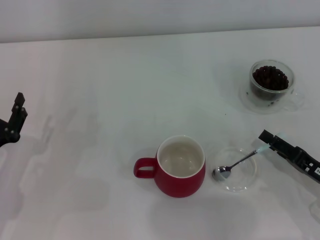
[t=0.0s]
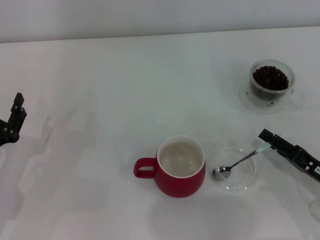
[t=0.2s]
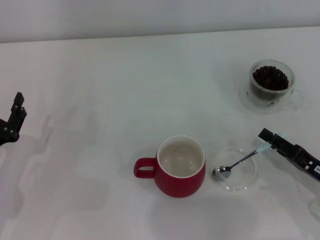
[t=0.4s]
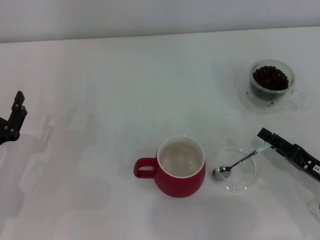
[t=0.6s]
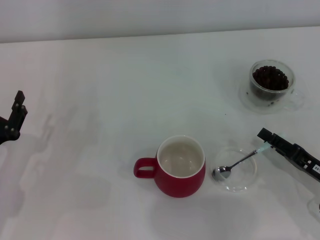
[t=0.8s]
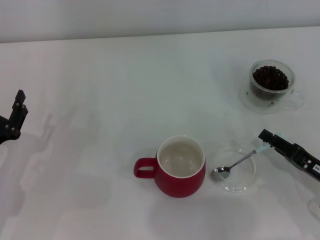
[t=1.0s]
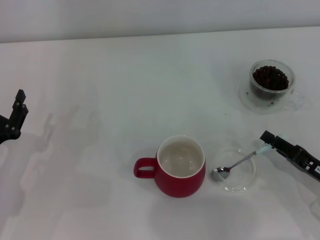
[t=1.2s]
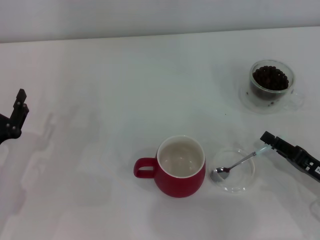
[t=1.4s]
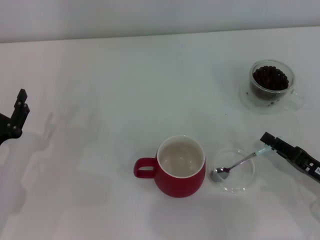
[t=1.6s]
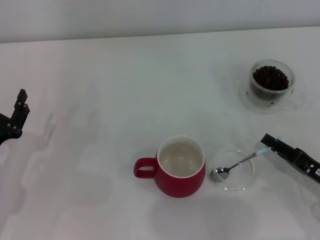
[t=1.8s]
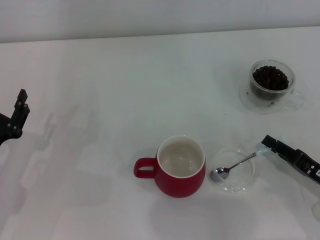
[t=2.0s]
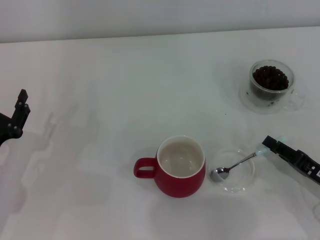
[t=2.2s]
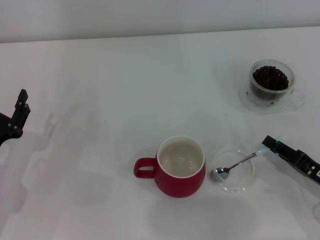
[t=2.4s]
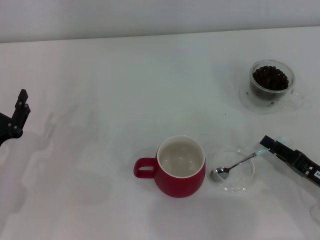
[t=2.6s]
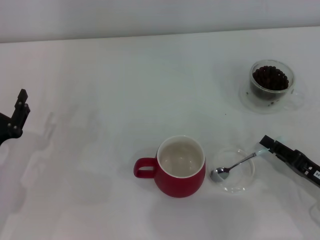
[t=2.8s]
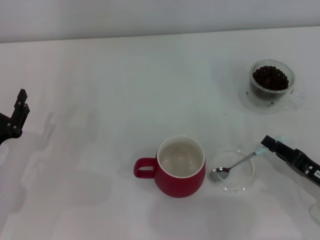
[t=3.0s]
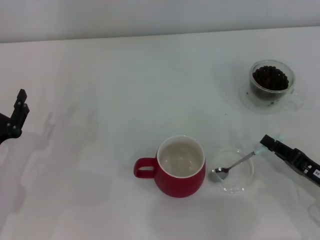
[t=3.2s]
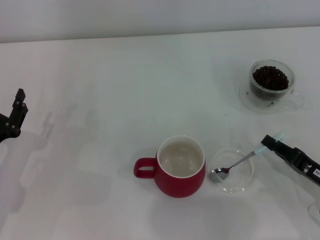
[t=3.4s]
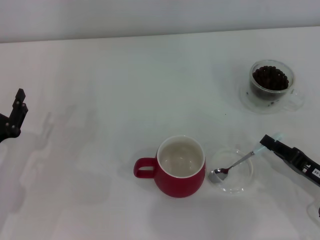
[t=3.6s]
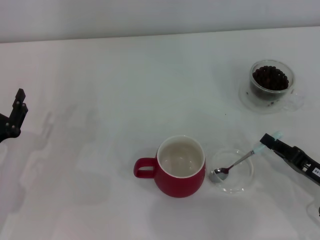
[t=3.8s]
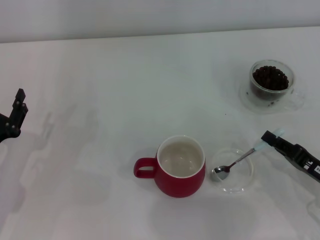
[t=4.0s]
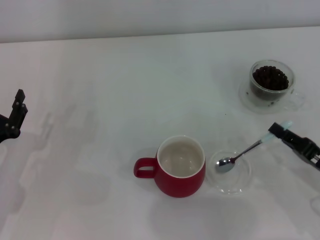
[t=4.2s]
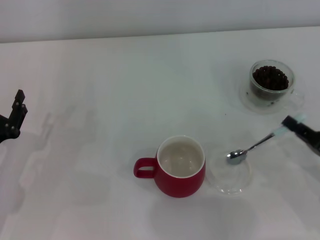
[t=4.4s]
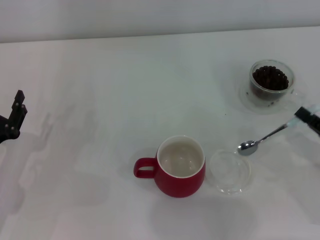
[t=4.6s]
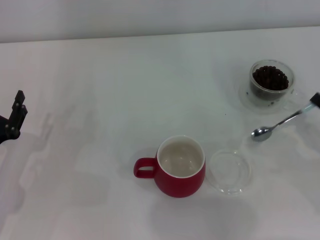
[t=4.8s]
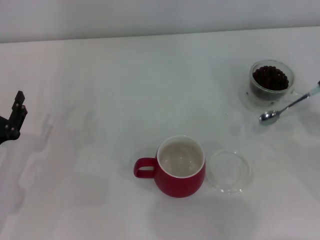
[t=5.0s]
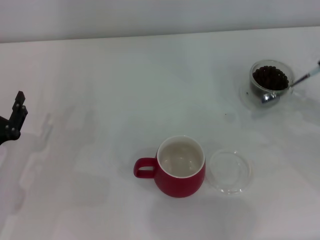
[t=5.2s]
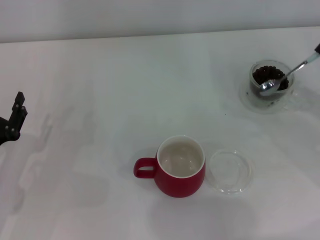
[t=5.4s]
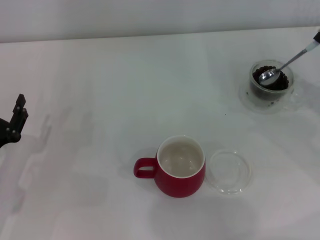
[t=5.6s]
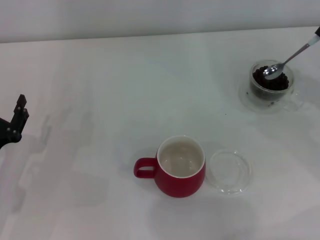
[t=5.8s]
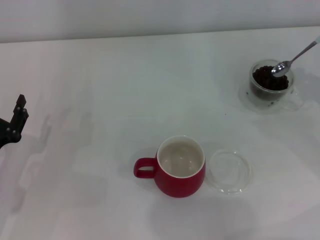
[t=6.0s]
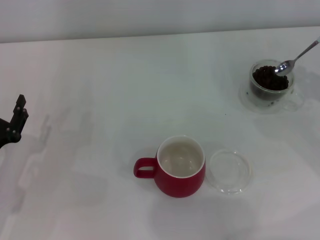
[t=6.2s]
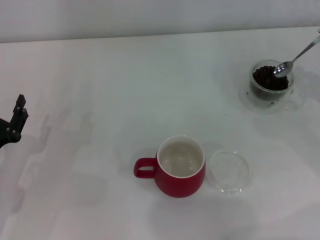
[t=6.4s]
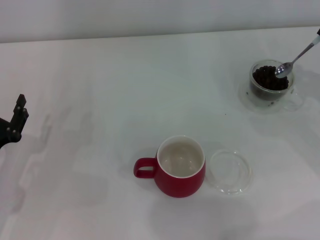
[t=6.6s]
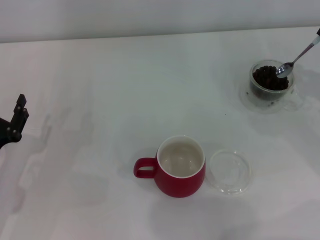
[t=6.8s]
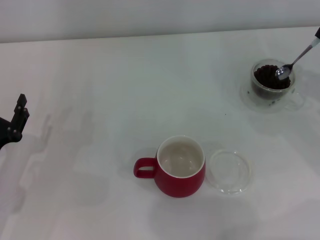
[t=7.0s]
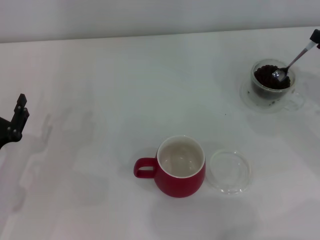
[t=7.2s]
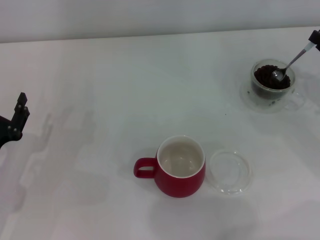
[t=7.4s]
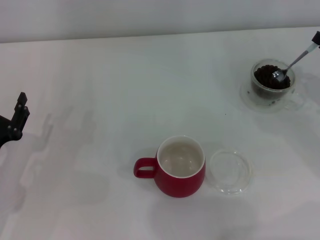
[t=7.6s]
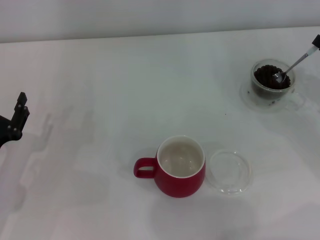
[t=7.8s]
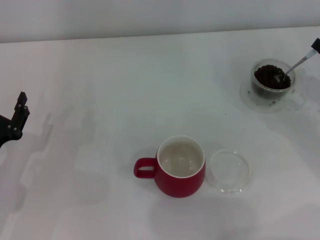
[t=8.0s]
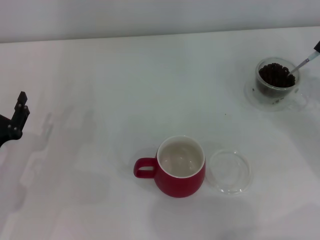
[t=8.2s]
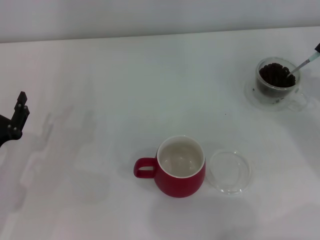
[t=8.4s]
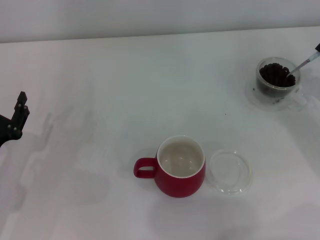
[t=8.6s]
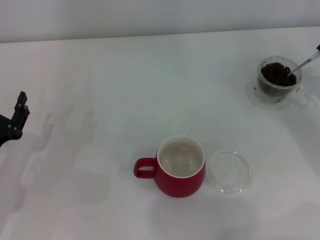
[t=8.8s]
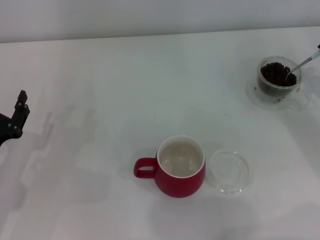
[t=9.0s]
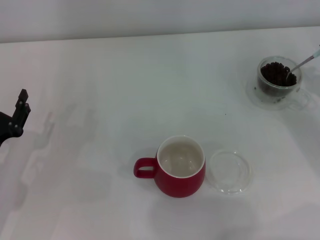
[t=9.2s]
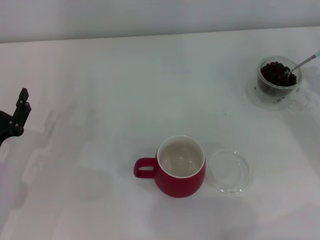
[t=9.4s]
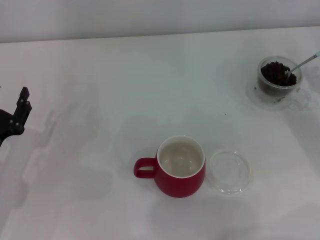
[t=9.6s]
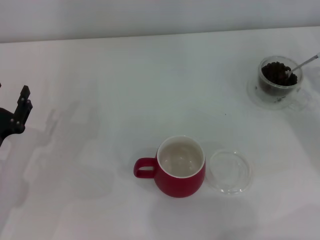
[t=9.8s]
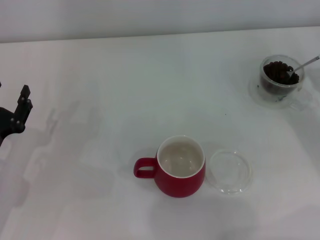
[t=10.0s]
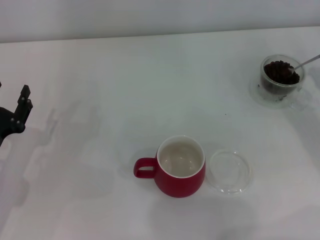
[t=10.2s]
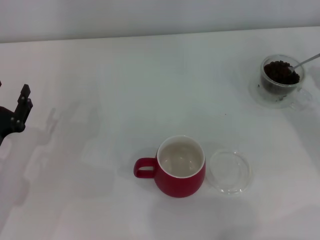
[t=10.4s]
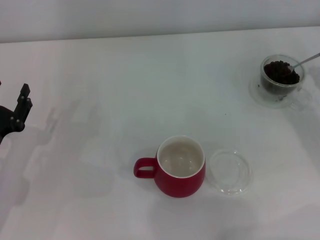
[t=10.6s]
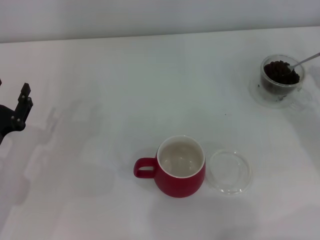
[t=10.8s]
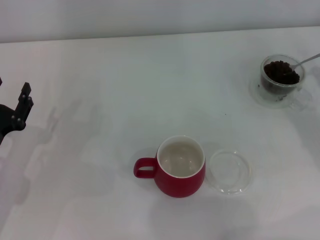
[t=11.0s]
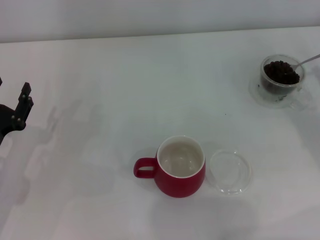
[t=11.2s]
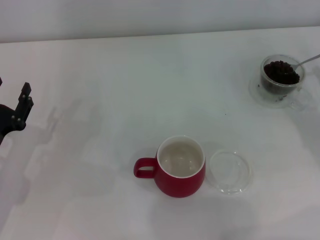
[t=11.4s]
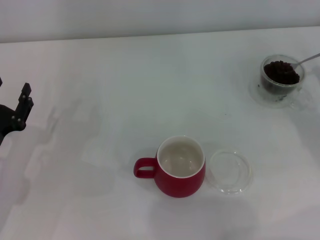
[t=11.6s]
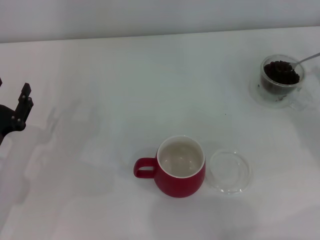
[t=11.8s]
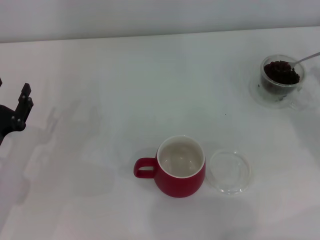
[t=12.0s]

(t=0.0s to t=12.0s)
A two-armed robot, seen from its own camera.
Task of the whole recording: Use a blue spoon to take out the coffee beans from the glass and pour them into the red cup.
Step, t=0.0s - t=4.6s: Pick up the spoon with the right gripper.
t=1.6s - t=3.0s: Both grippers stay put.
t=3.0s - t=4.4s: The right gripper closes.
t=4.4s - t=6.0s: The right gripper shifts some 15 cm forward, upward and to the right.
t=6.0s - t=7.6s: The grippers stay close to where they were, moving slightly.
t=9.0s - t=10.4s: There are only small adjustments of the grippers.

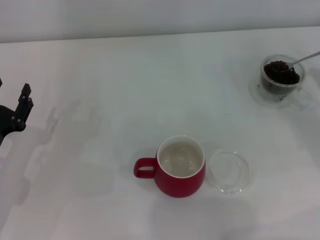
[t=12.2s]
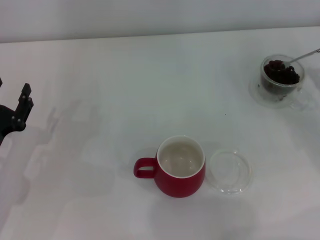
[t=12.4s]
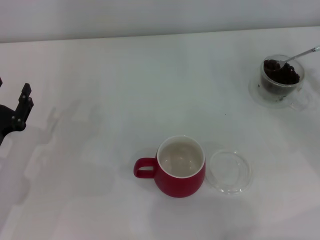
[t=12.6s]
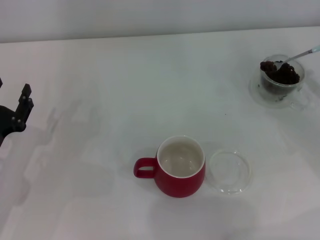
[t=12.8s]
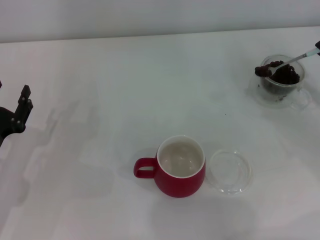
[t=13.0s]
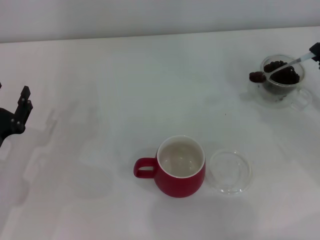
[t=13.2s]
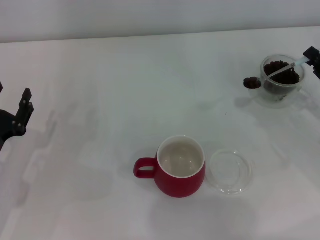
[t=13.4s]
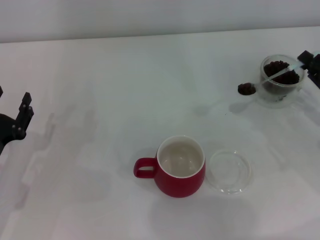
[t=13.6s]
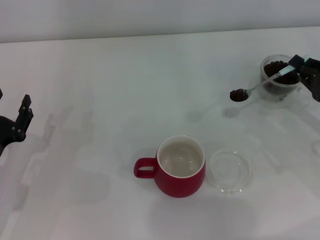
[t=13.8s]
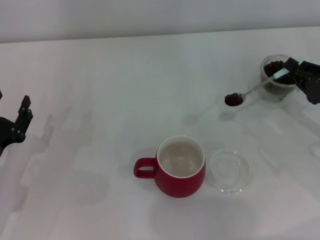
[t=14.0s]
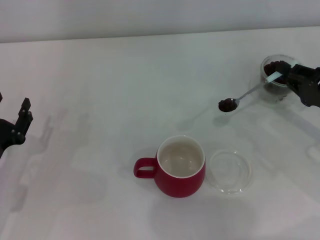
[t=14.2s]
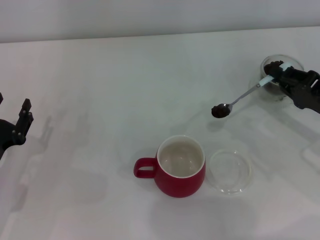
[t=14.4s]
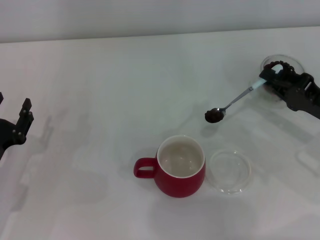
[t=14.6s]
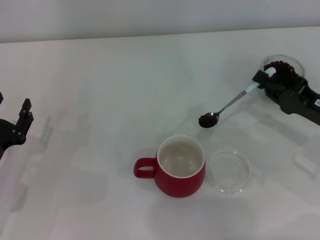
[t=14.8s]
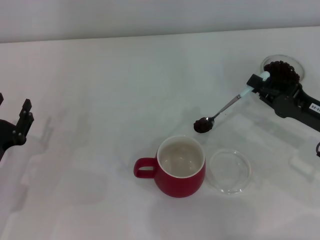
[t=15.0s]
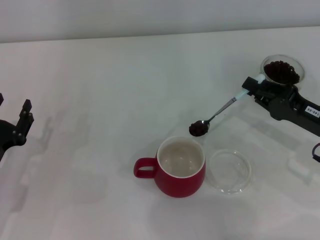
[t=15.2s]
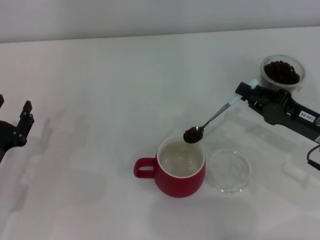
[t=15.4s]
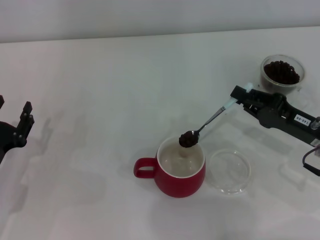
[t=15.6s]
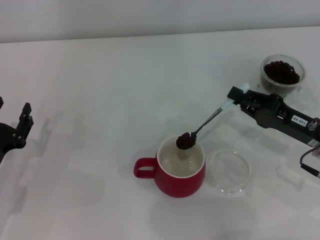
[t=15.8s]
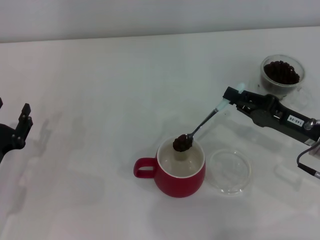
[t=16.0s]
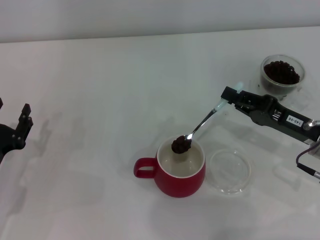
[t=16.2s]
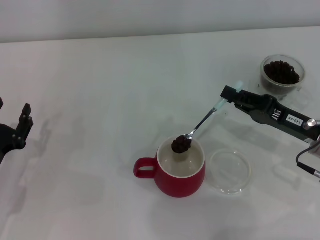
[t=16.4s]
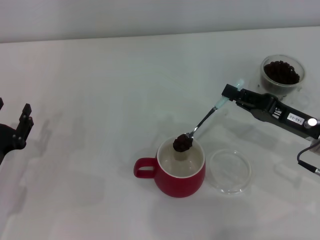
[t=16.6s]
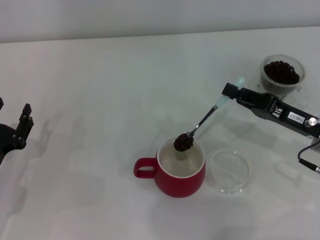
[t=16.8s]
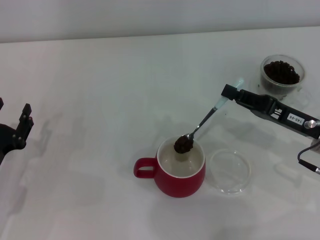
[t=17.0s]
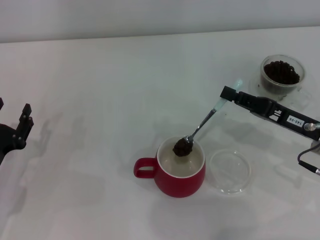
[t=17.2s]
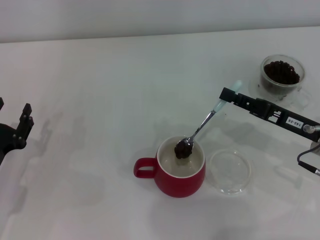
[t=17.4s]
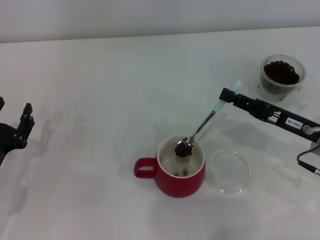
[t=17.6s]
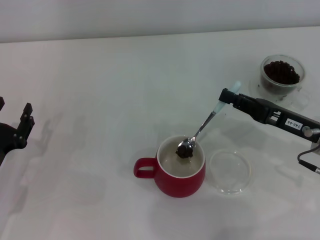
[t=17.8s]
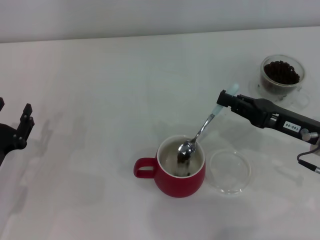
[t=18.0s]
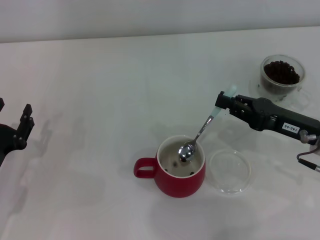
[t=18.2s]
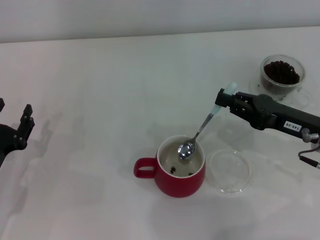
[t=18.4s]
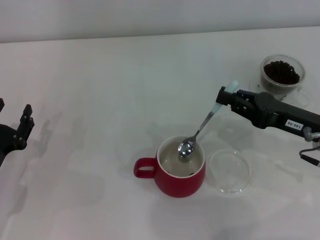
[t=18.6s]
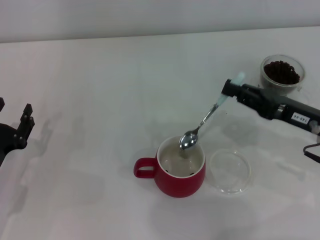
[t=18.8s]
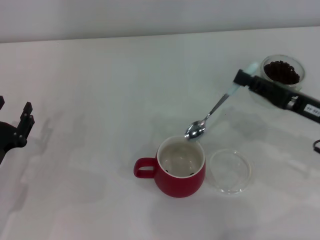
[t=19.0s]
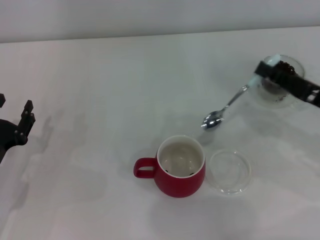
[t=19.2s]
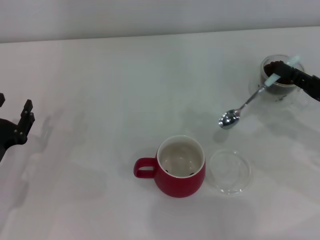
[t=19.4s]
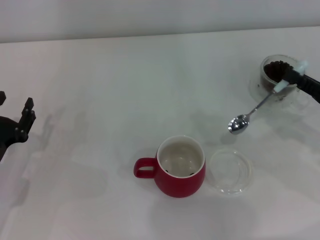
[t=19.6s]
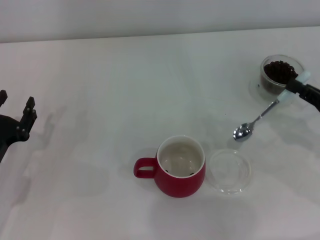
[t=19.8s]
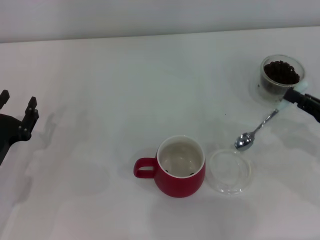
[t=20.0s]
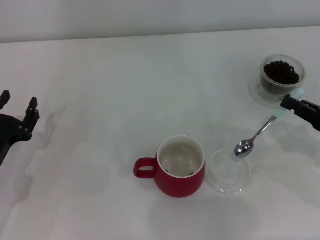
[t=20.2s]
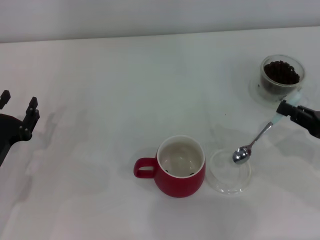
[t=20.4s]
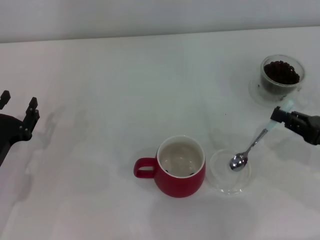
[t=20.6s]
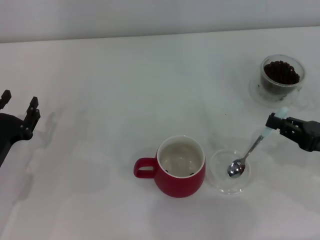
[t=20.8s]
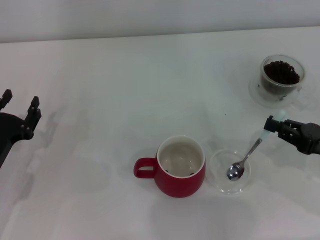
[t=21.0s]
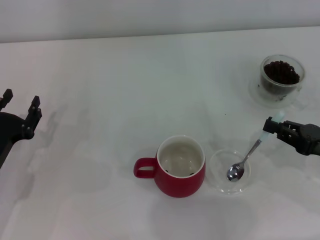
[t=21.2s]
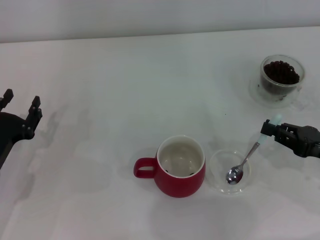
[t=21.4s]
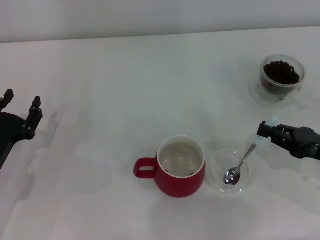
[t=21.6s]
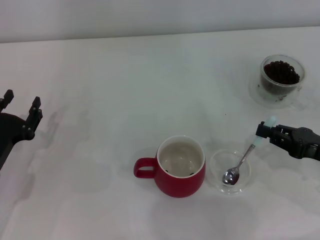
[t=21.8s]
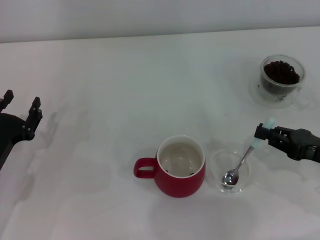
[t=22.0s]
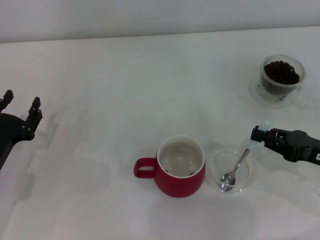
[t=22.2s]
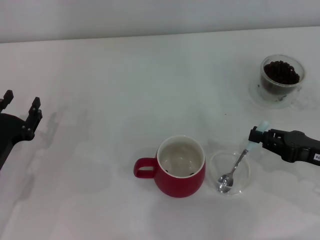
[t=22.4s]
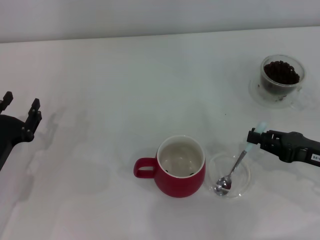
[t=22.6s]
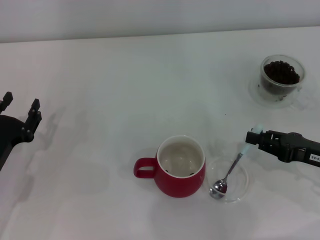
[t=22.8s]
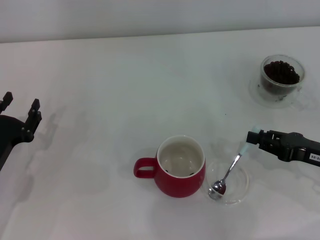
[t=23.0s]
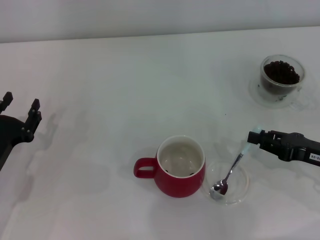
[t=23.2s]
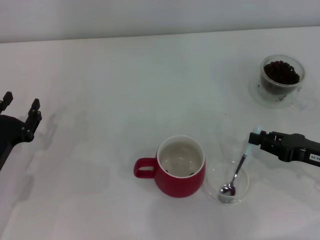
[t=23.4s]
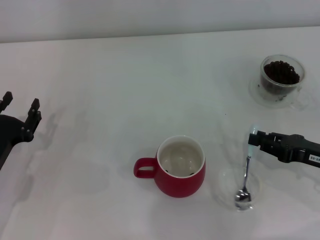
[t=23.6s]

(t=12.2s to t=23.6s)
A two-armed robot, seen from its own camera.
Task of the whole recording: Use a blue spoon to take out the coffee beans from the glass and pour them into the red cup.
Step, t=12.2s - t=19.0s: Scoop a spoonful of beans into the cup with the right gripper.
t=12.2s - t=13.6s: The grippers move only a little.
t=13.6s - t=15.0s: The right gripper travels to the left by about 5 cm.
t=15.0s - t=16.4s: The grippers stay close to where they were, moving slightly.
t=16.4s - t=17.8s: The grippers stay close to where they were, moving slightly.
t=17.8s - t=19.4s: The right gripper travels to the right by approximately 5 cm.
t=19.4s - t=22.2s: There are only small adjustments of the grippers.
t=22.2s - t=23.6s: There are only small adjustments of the grippers.
